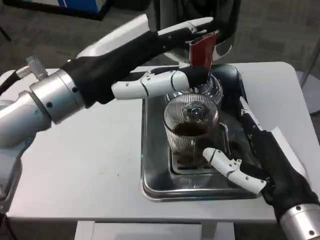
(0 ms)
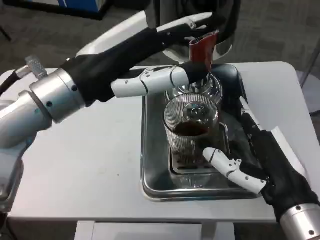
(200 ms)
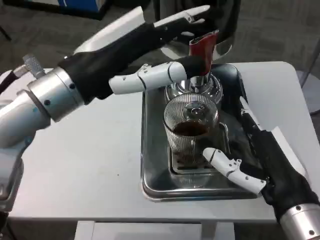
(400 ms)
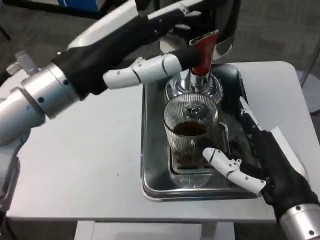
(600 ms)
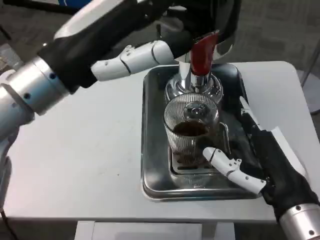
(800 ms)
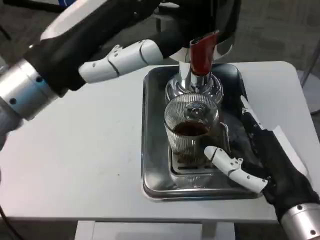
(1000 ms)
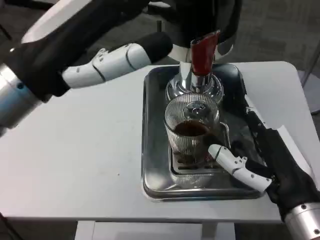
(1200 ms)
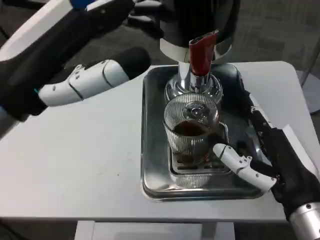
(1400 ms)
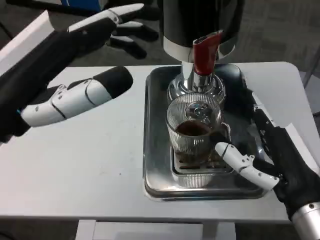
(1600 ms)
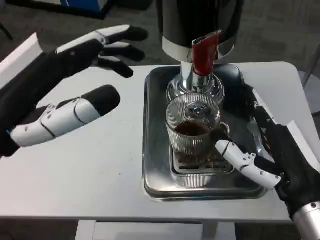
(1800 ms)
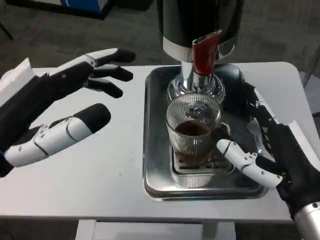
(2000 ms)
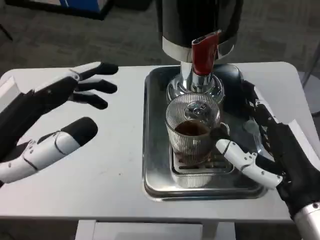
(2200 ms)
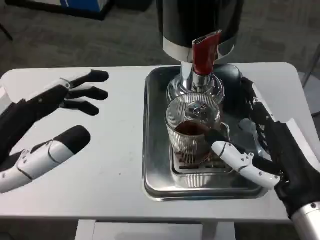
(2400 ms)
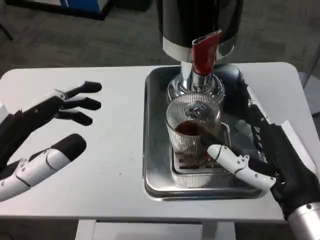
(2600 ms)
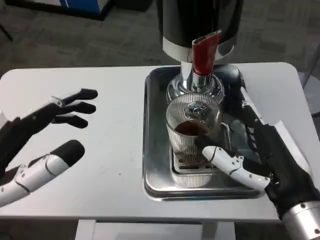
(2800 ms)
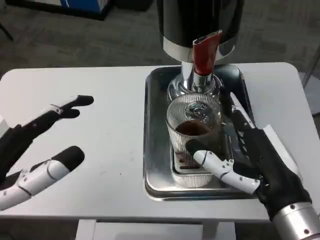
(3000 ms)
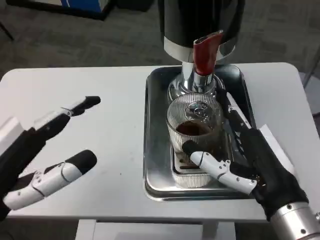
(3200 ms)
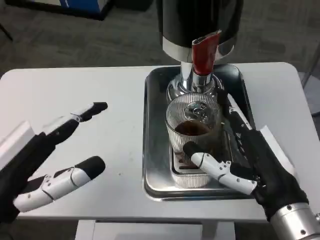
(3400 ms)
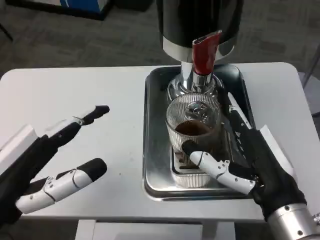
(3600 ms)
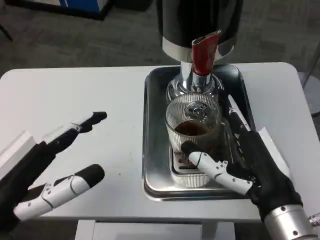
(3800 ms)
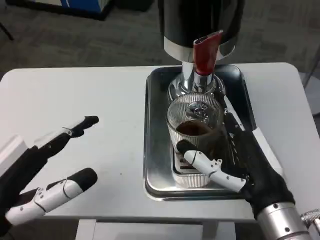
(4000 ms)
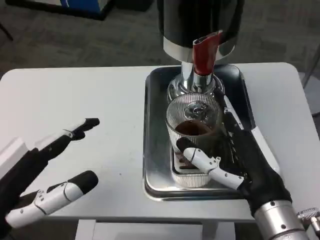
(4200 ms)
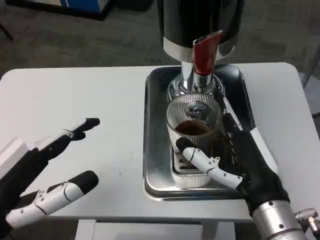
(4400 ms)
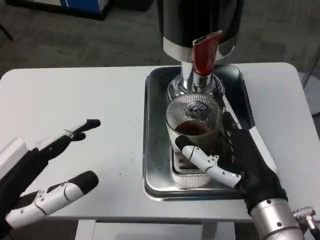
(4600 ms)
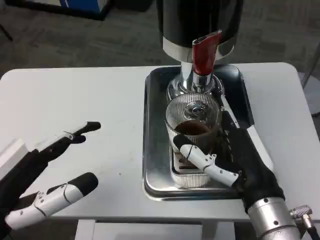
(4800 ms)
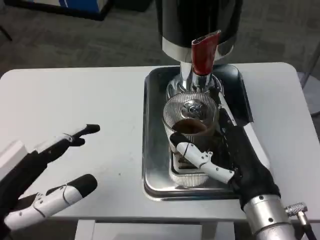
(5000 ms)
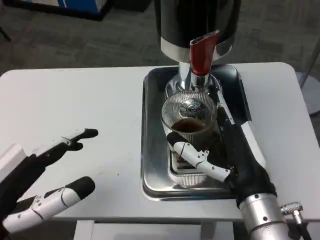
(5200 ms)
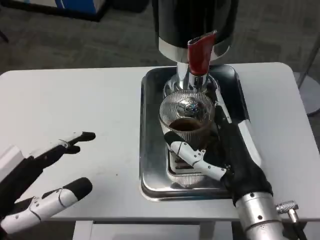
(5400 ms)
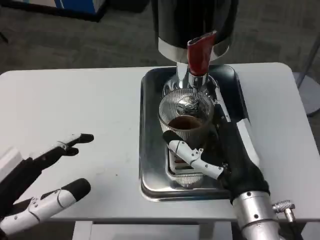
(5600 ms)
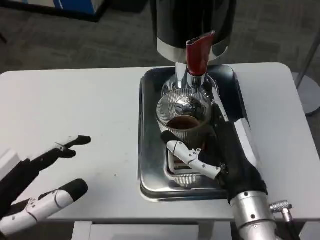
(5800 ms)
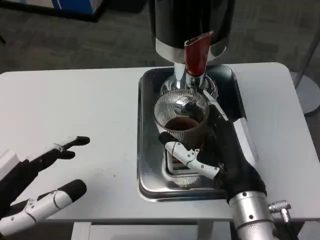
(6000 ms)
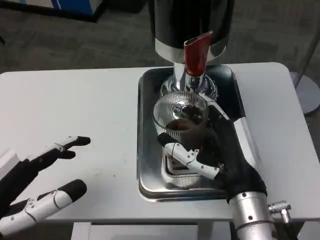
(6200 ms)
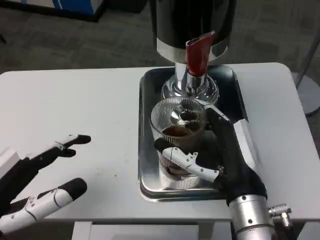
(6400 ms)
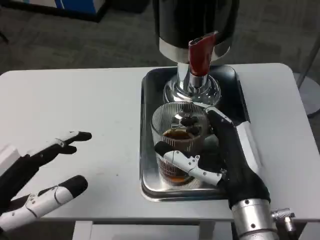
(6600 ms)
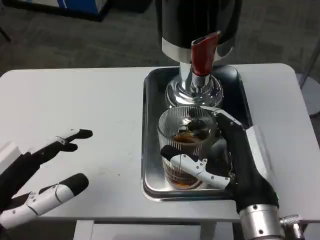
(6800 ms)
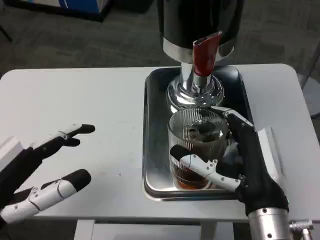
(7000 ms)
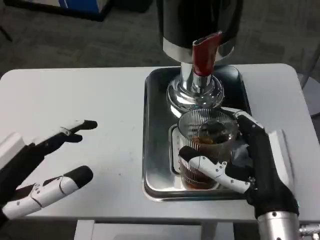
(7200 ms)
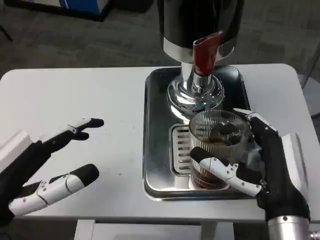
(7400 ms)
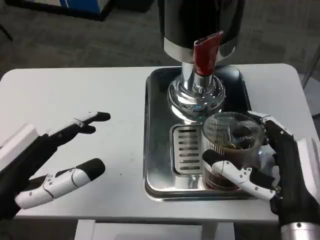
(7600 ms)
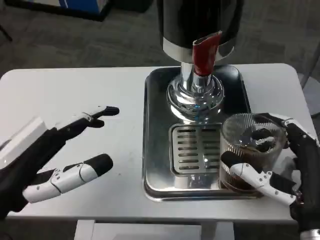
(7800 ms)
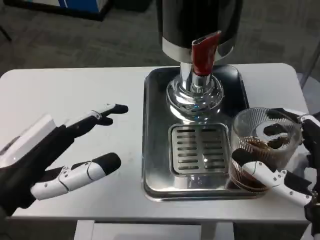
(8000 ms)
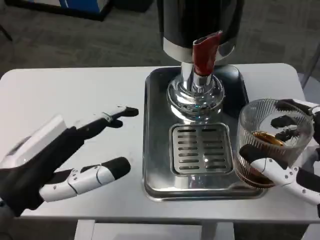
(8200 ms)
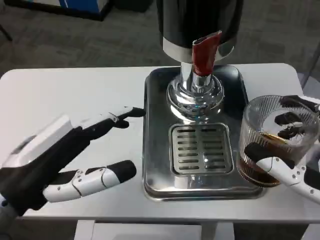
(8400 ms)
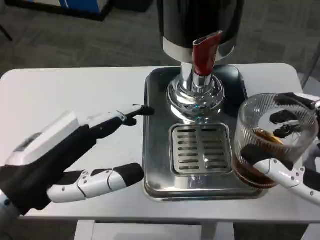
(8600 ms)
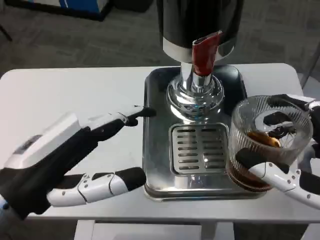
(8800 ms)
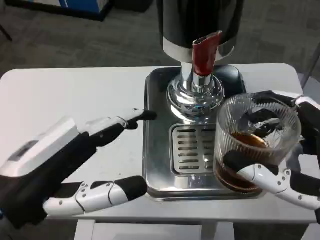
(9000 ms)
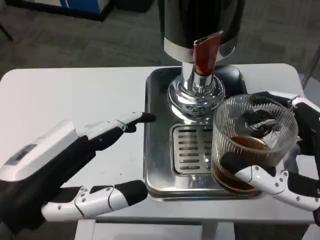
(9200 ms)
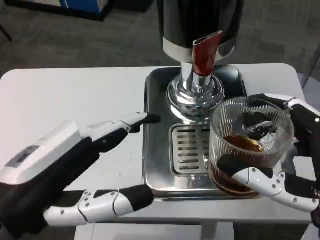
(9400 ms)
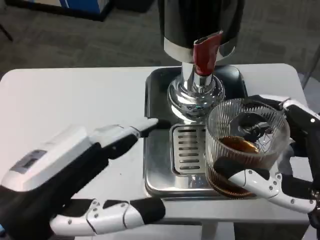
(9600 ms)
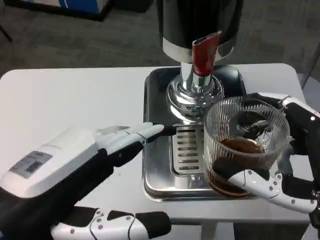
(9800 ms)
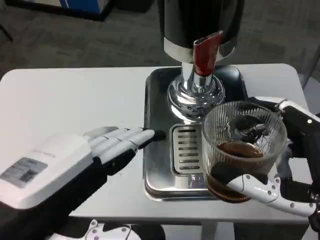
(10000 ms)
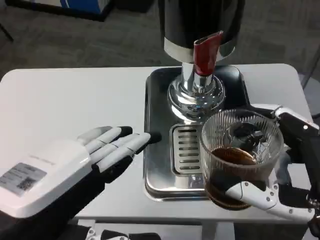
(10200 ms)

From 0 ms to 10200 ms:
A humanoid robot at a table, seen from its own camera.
Task of the whole recording: Grasp the cup under the faucet to collect the drink, then remove the cup.
From 0 ms to 1400 ms: The left hand heads backward, covering some 5 cm.
From 1400 ms to 3000 ms: The left hand shifts some 10 cm downward and backward.
From 3000 ms to 4400 ms: The hands move only a little.
From 7200 ms to 8800 ms: The left hand shifts by some 5 cm. The right hand shifts about 10 cm backward and to the right.
From 8800 ms to 10200 ms: The left hand goes approximately 5 cm backward.

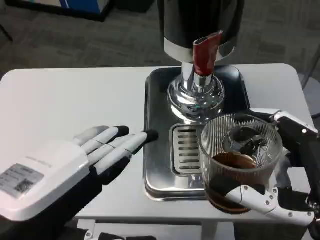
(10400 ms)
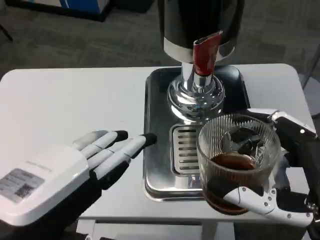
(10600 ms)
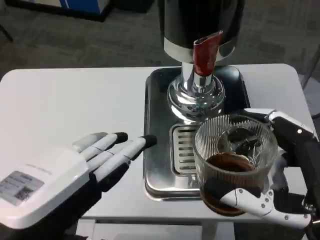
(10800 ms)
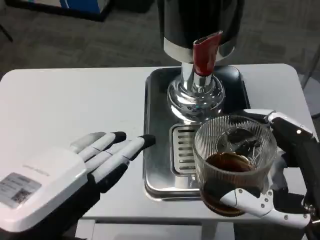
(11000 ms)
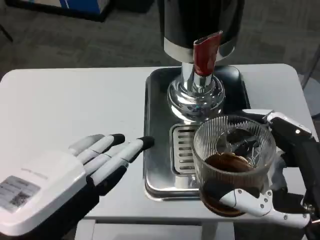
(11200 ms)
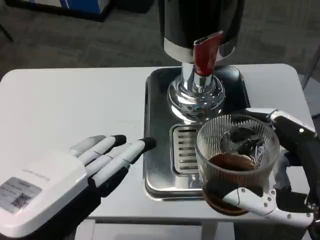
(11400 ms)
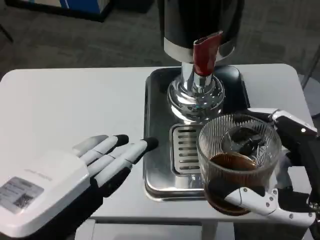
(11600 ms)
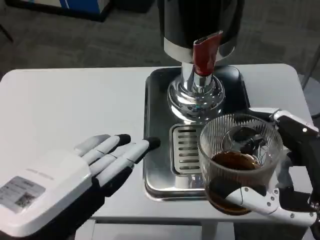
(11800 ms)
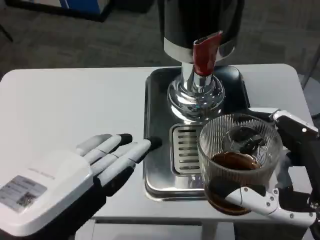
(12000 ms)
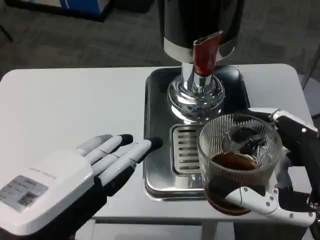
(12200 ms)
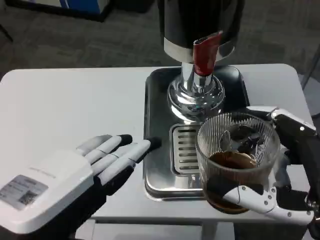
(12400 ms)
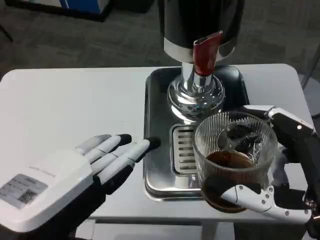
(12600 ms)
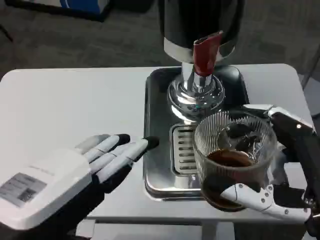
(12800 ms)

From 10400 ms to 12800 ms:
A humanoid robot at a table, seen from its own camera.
Task of the whole recording: Grasp the cup under the faucet to collect the drink, then remove the cup.
From 10400 ms to 12800 ms: Both hands stay about where they are.

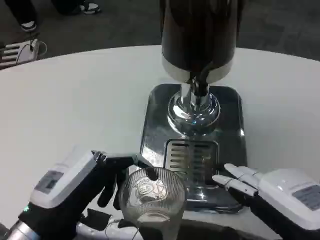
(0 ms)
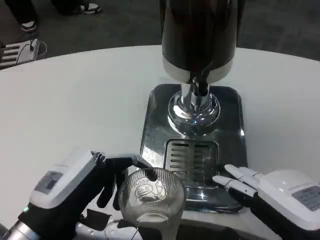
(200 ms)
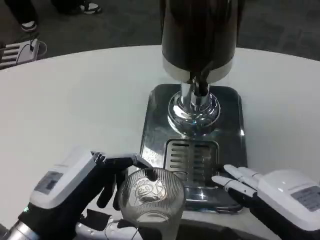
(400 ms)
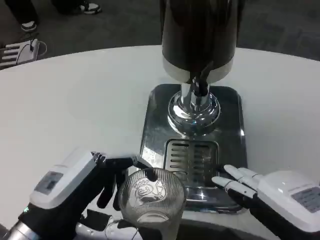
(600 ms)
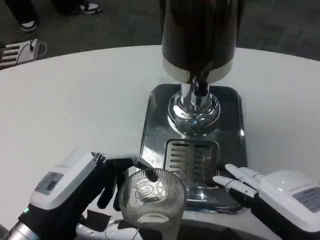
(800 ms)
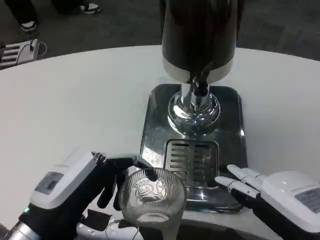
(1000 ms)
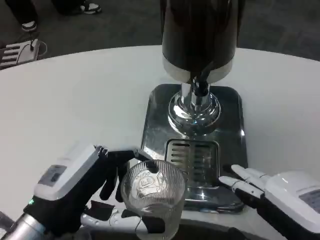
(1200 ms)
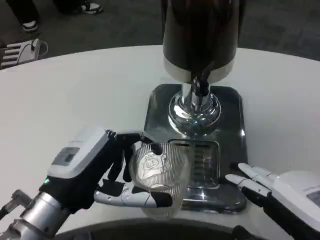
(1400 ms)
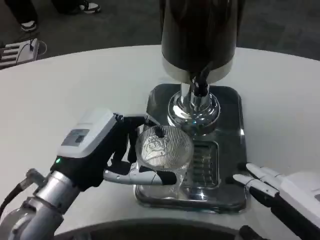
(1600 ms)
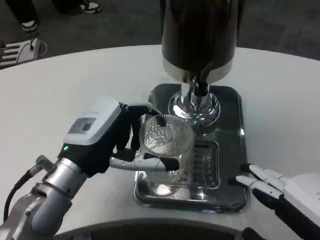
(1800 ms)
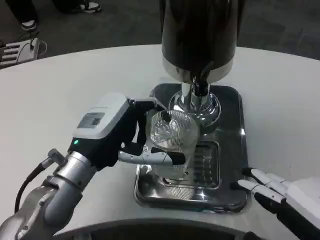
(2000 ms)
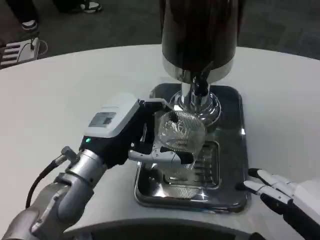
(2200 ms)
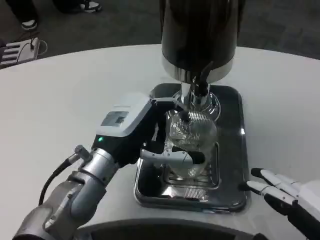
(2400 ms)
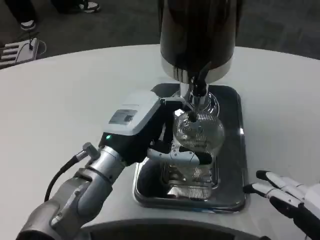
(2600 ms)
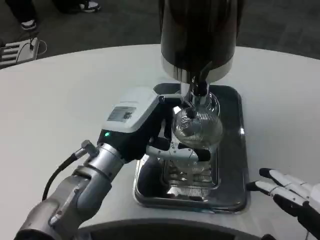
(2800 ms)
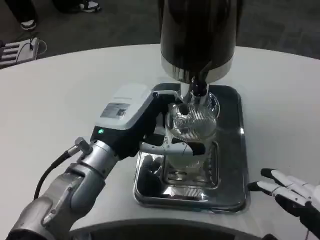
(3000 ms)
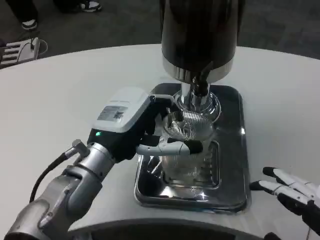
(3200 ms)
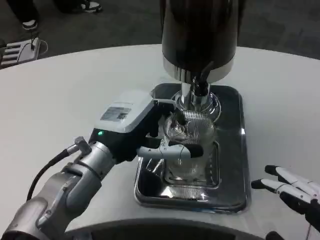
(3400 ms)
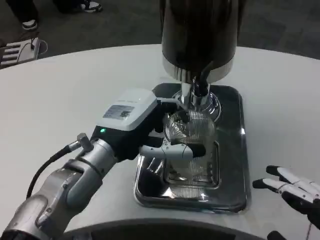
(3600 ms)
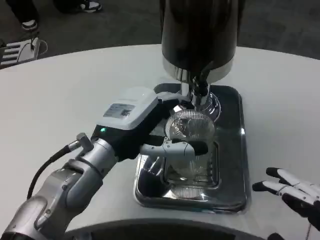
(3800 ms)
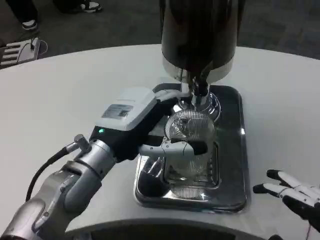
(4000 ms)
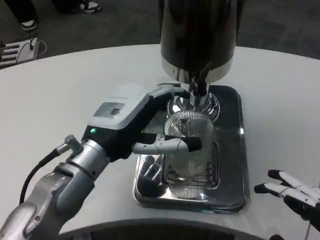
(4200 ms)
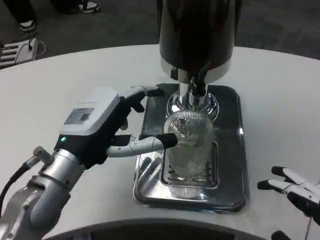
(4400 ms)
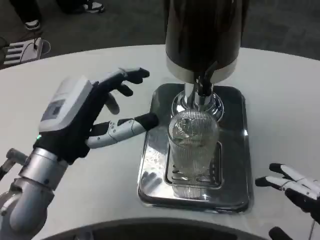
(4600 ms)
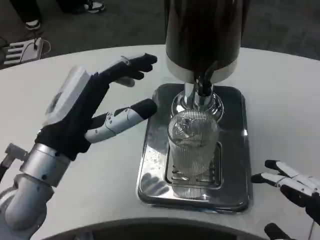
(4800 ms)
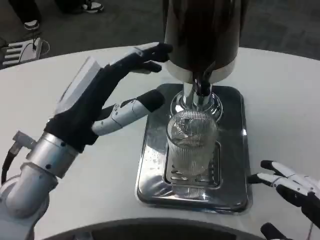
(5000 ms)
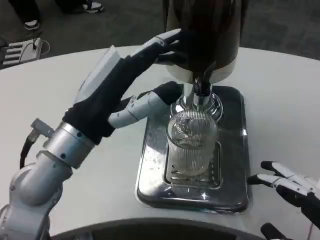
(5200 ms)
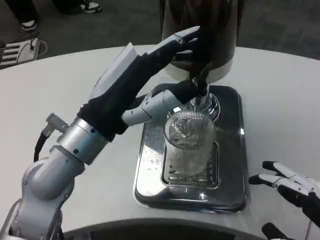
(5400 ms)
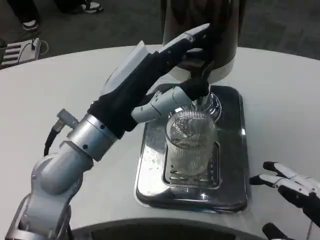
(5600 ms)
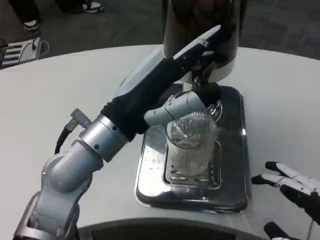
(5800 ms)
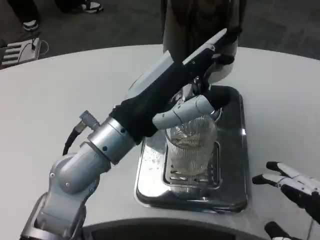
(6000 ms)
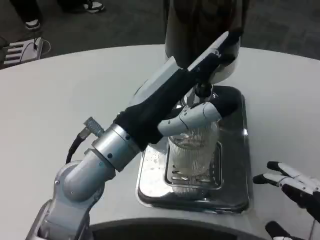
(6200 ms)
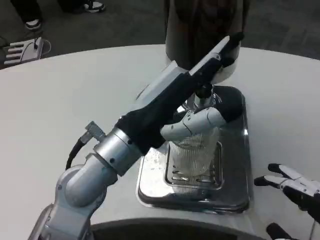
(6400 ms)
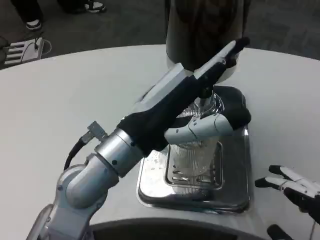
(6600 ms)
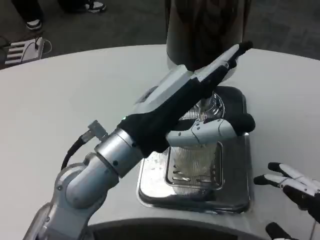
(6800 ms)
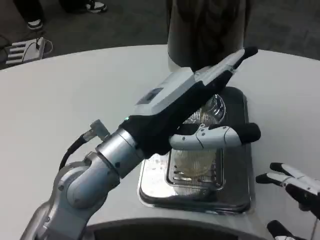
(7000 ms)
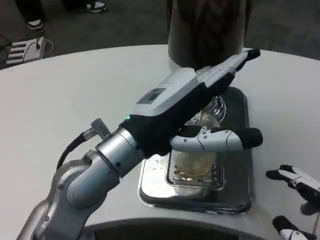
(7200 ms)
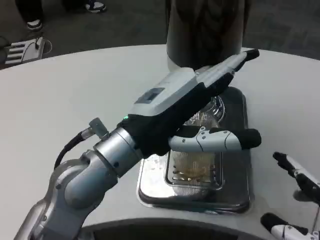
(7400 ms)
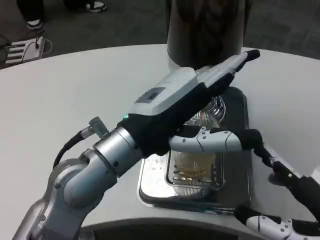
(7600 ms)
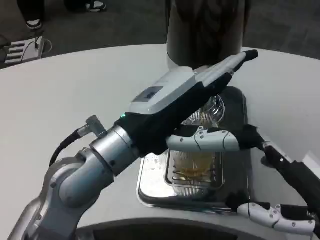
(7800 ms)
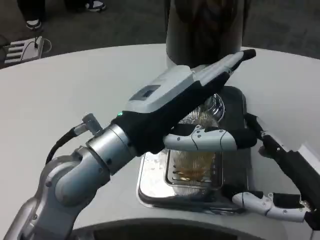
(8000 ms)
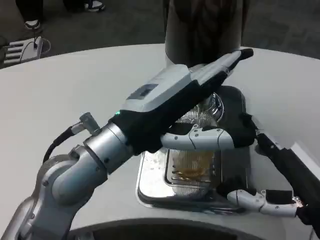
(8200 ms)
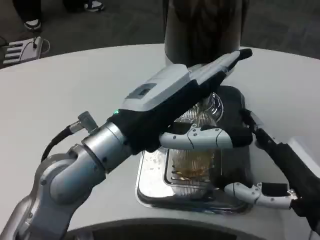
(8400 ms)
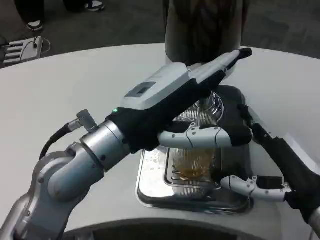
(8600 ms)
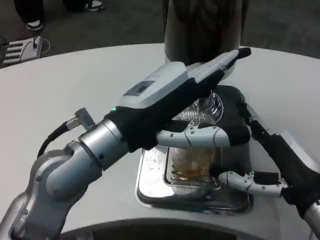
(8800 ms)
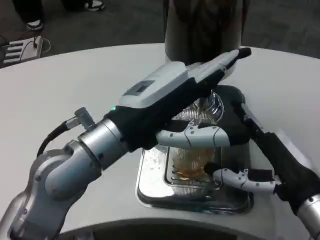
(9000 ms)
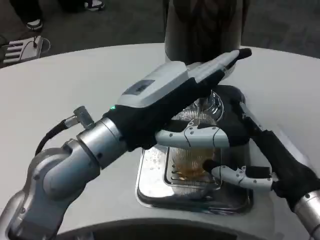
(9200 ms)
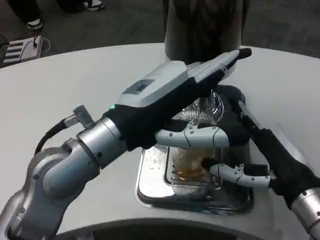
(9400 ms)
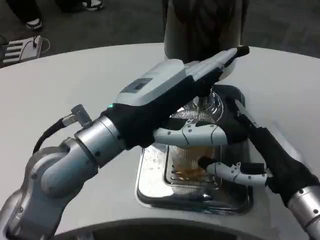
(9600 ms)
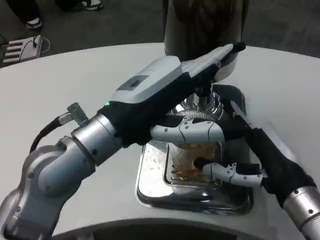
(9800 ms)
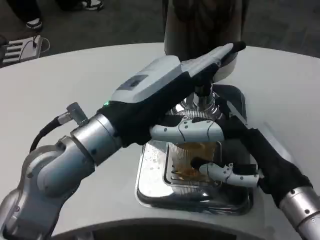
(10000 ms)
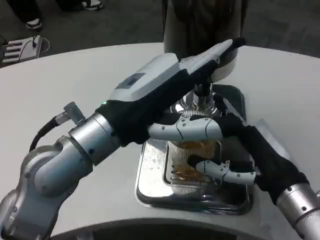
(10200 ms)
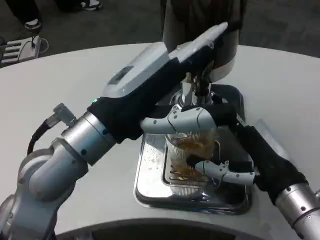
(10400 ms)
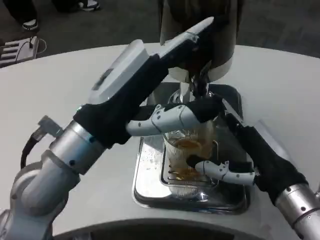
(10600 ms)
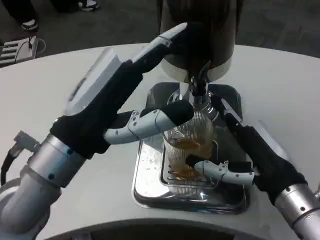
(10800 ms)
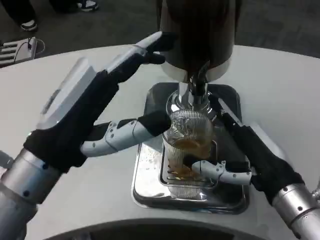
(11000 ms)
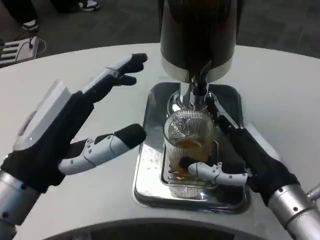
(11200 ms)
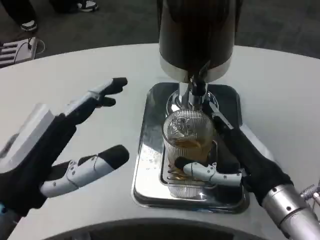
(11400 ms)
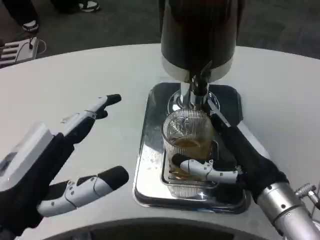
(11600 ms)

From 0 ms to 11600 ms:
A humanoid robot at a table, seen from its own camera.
Task of the whole recording: Grasp the cup under the faucet to collect the drink, then remove the cup.
From 1400 ms to 2800 ms: The left hand heads forward and to the right, covering about 10 cm.
From 2800 ms to 4400 ms: The left hand shifts by roughly 5 cm.
From 4400 ms to 5800 ms: The left hand travels upward by some 5 cm.
From 7200 ms to 8800 ms: The right hand moves forward, about 10 cm.
From 10200 ms to 11600 ms: The left hand travels backward, to the left and downward by roughly 15 cm.
